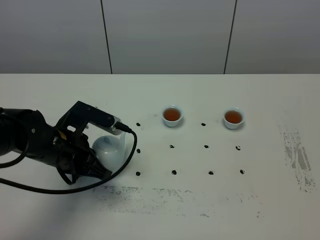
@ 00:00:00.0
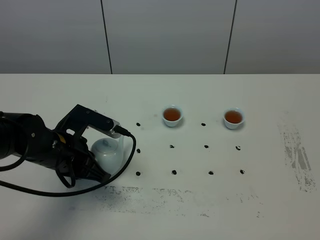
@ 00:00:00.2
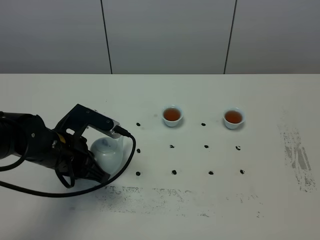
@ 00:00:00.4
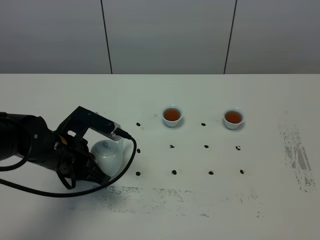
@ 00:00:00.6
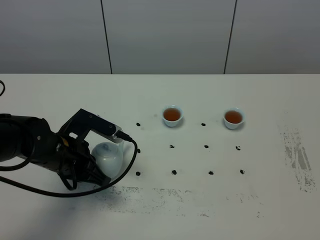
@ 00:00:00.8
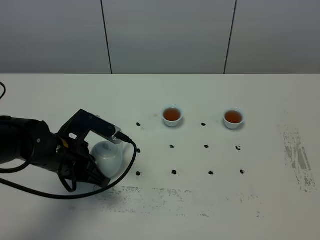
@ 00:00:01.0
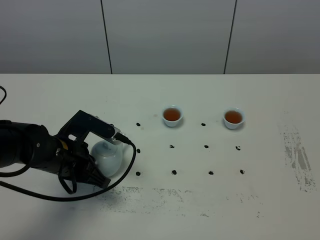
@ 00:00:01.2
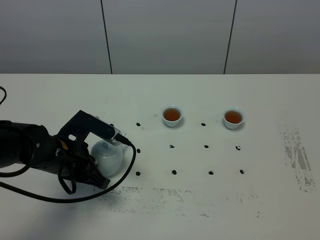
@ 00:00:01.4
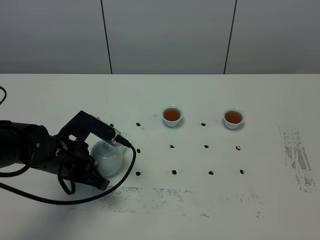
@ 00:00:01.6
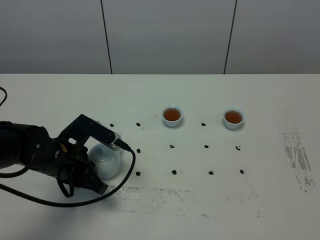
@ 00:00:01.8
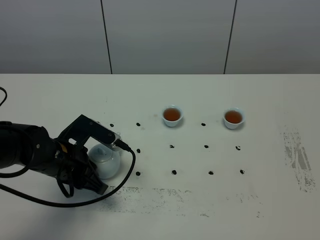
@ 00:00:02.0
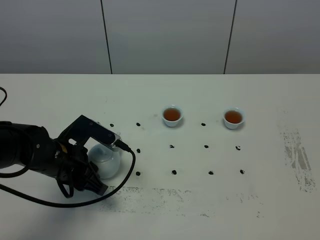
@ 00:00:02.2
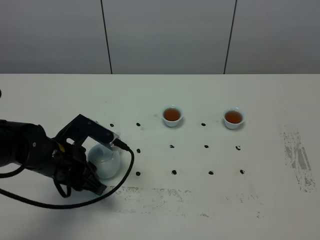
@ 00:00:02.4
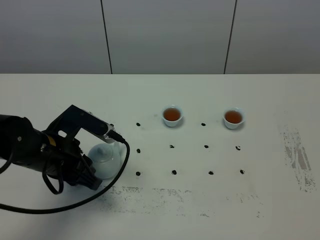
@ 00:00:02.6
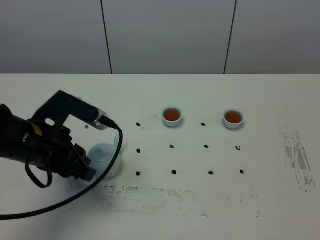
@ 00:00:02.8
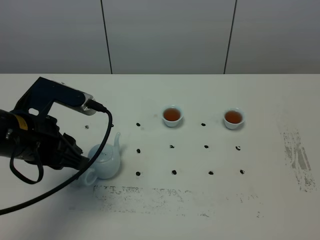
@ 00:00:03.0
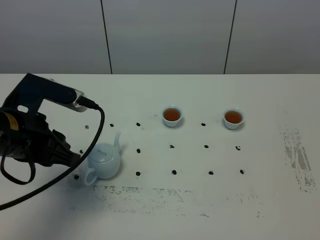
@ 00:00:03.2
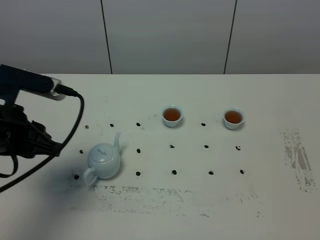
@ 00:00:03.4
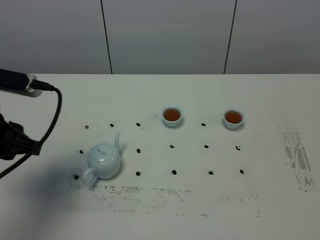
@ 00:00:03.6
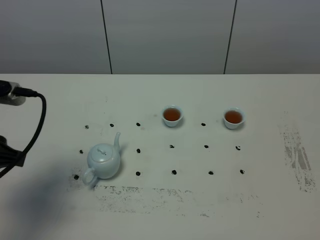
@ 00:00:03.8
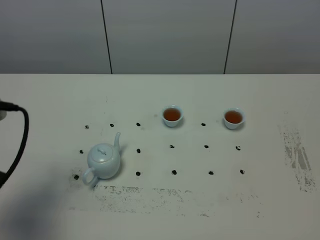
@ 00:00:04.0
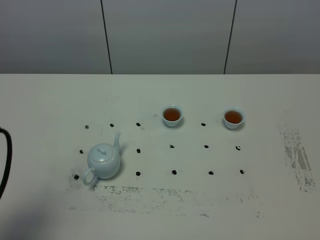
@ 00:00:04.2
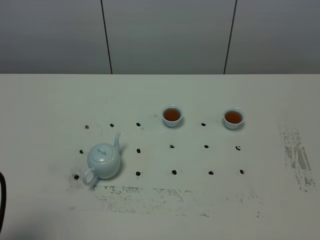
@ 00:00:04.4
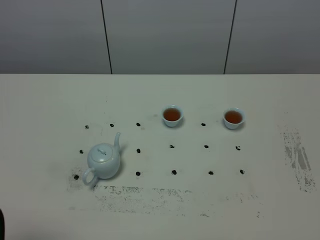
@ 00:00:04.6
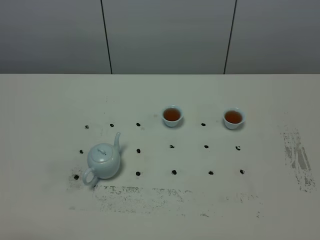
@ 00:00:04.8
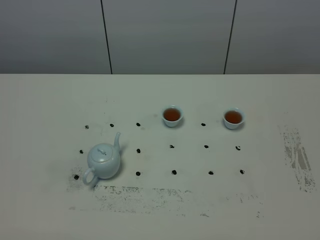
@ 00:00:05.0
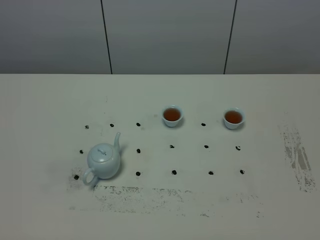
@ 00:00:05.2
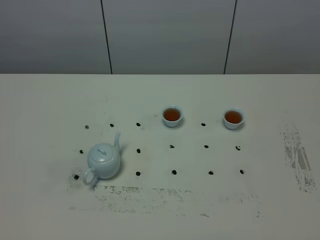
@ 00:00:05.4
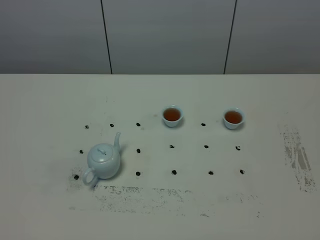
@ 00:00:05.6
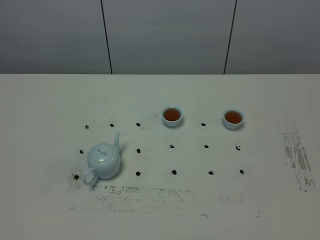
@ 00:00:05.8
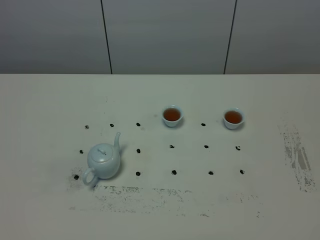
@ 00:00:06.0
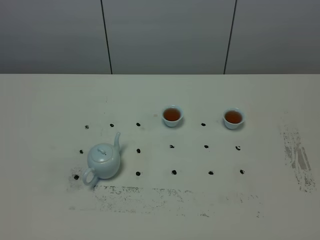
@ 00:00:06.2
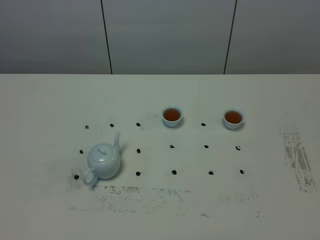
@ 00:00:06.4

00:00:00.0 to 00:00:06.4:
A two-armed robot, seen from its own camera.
Task of the whole recording: grasp the blue porcelain teapot and pour the tea into the two blue porcelain teacups one by one, put the blue porcelain teapot back in its original place.
00:00:00.0 to 00:00:01.6: The grippers stay close to where they were, moving slightly.
00:00:01.6 to 00:00:03.2: The left gripper heads upward, covering approximately 10 cm, and opens.
00:00:03.2 to 00:00:04.8: The left gripper moves backward and to the left, roughly 20 cm.
